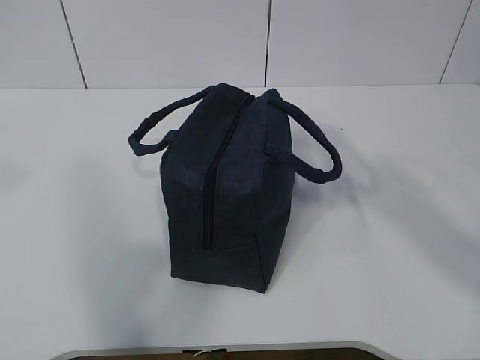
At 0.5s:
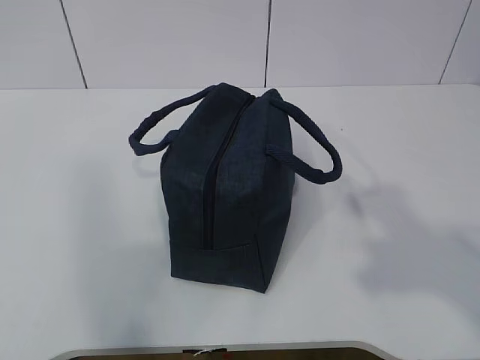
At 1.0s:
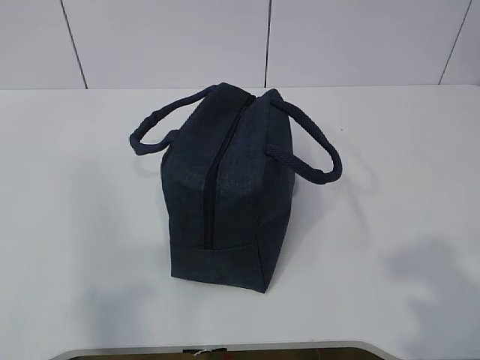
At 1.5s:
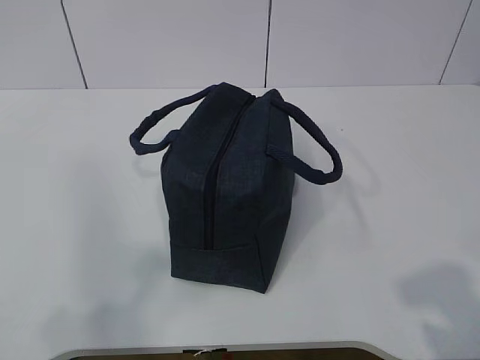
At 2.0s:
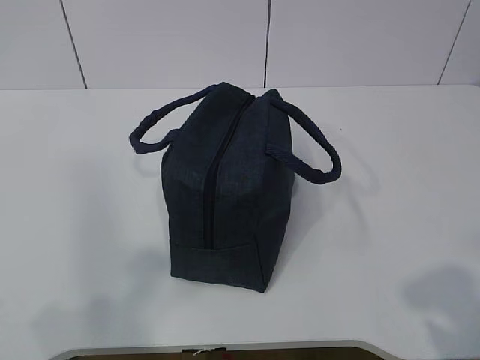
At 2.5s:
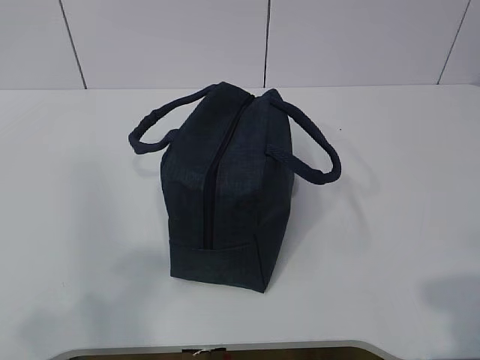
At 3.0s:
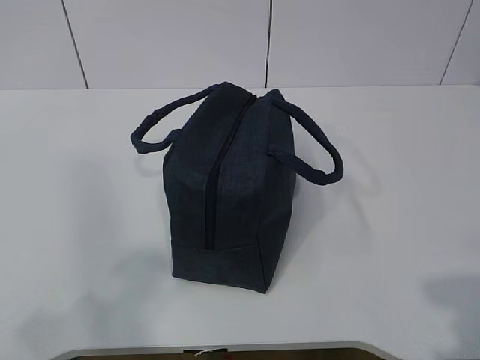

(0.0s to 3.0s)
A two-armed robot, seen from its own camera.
0.0s - 1.5s: Both grippers travel together downward and backward, some 20 cm.
